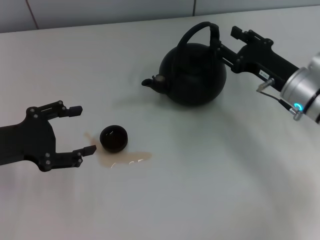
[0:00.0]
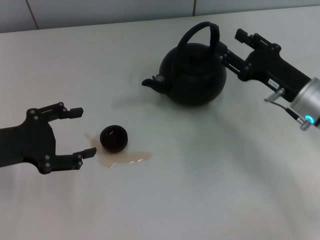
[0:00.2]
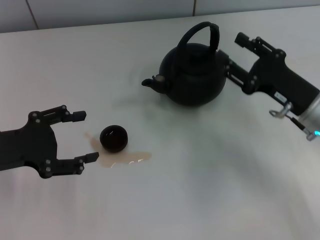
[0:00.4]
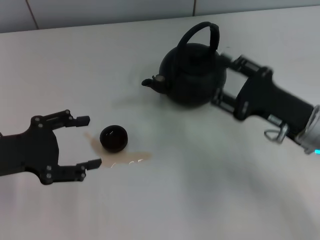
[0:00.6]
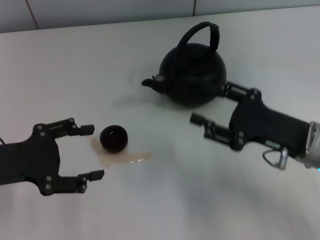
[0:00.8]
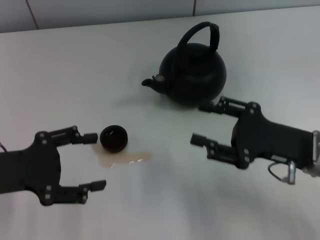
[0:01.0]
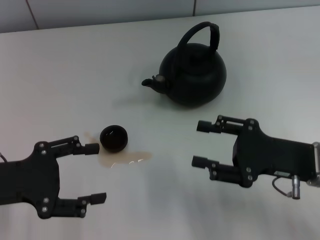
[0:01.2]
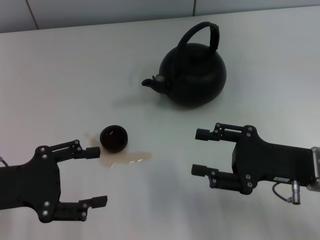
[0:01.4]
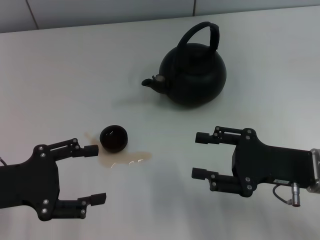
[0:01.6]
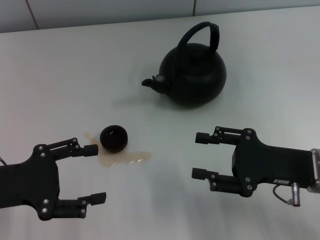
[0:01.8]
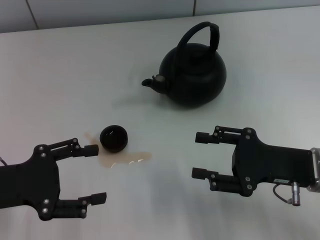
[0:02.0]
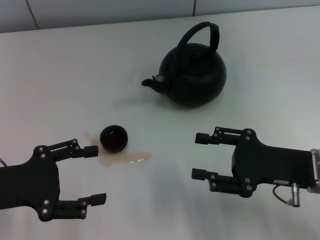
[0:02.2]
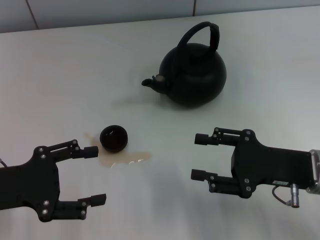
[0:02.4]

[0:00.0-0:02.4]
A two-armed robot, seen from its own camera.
Task of the whole recording: Grasp the handle of the teapot with one hand and pour tea into the teacup.
0:00.0 to 0:01.2: The right gripper moves backward, approximately 10 cm.
0:01.2 to 0:02.4: Neither gripper changes place.

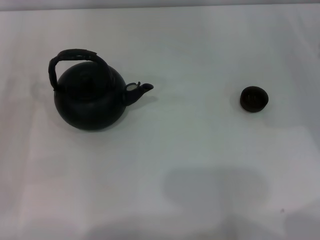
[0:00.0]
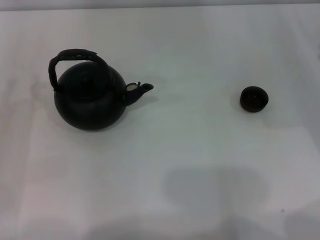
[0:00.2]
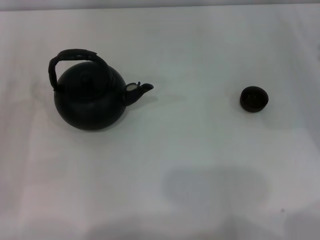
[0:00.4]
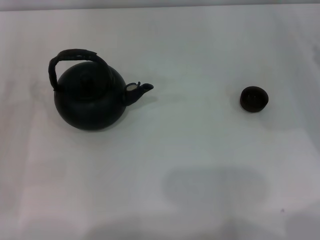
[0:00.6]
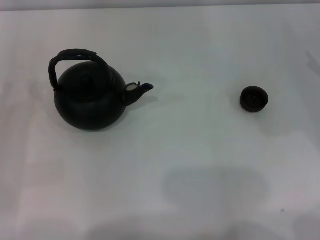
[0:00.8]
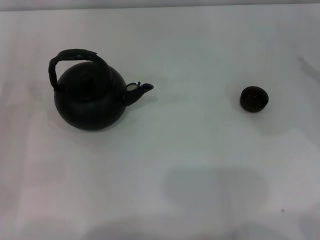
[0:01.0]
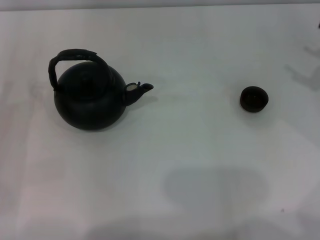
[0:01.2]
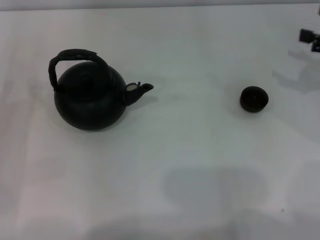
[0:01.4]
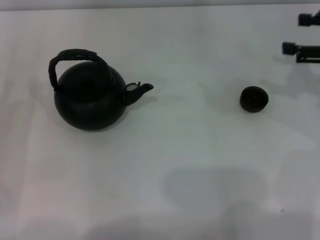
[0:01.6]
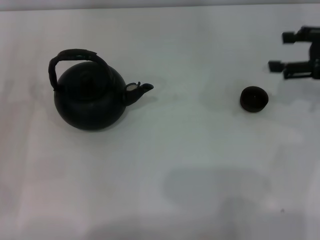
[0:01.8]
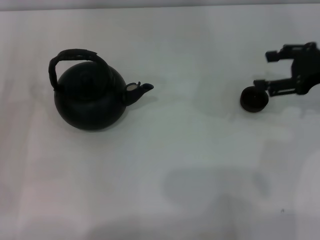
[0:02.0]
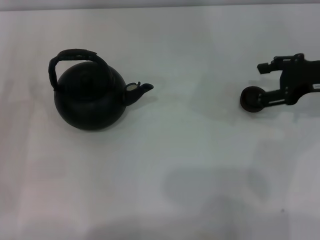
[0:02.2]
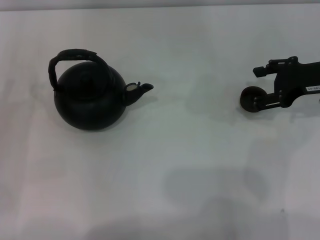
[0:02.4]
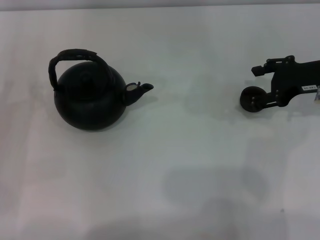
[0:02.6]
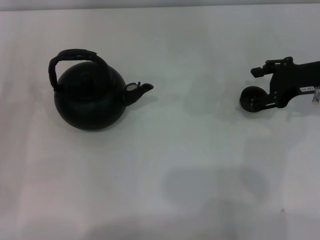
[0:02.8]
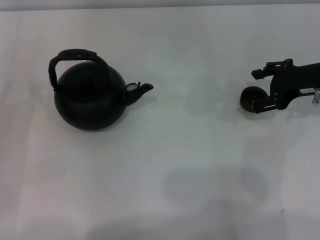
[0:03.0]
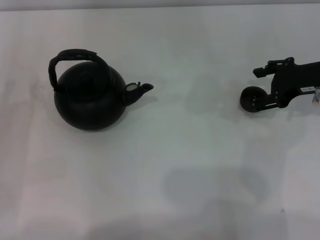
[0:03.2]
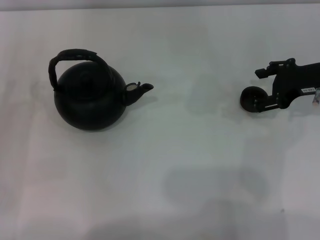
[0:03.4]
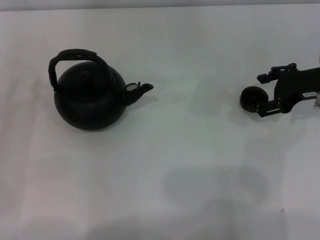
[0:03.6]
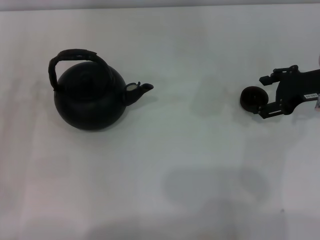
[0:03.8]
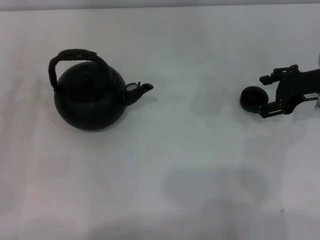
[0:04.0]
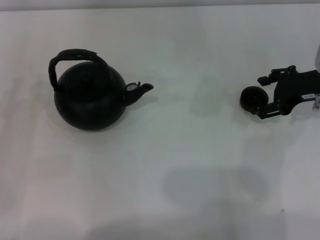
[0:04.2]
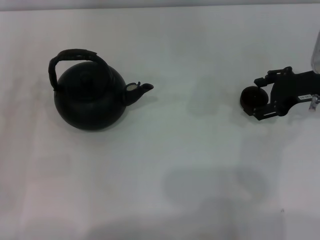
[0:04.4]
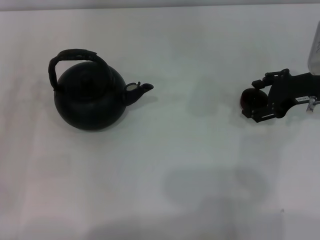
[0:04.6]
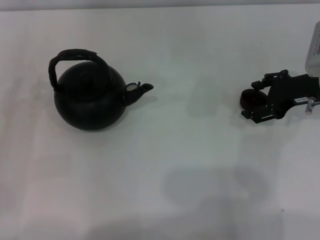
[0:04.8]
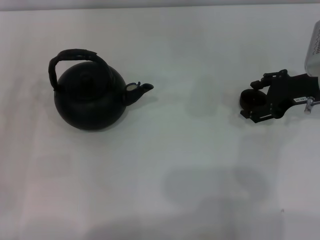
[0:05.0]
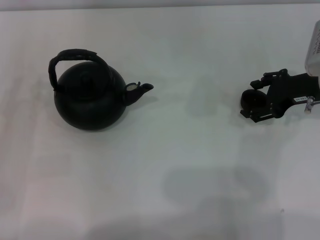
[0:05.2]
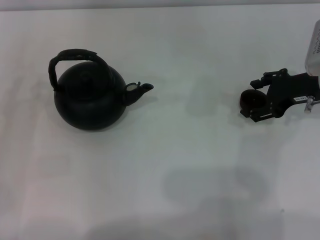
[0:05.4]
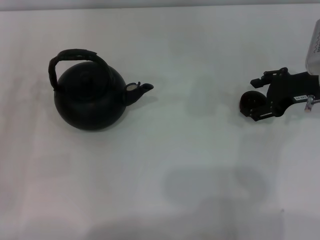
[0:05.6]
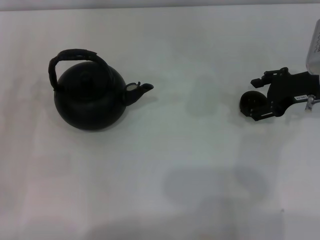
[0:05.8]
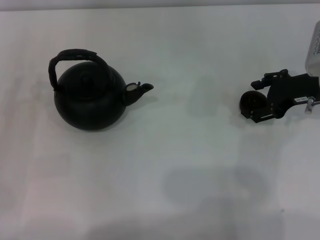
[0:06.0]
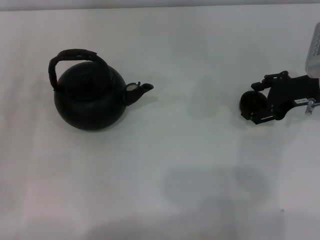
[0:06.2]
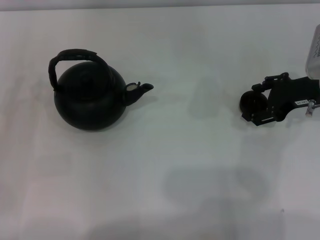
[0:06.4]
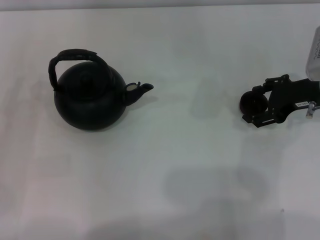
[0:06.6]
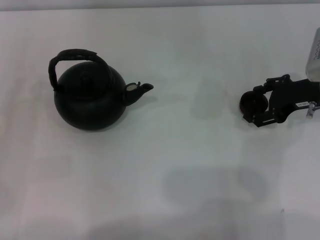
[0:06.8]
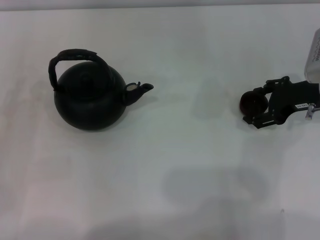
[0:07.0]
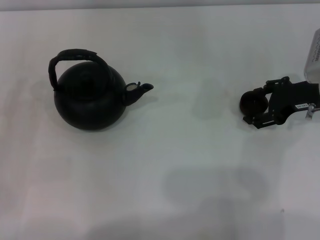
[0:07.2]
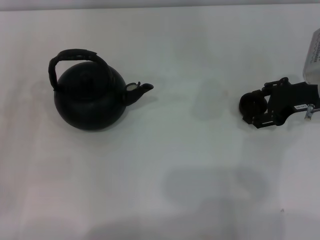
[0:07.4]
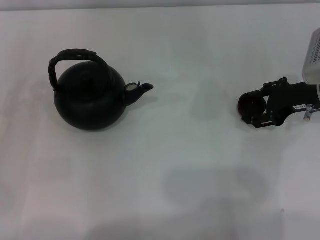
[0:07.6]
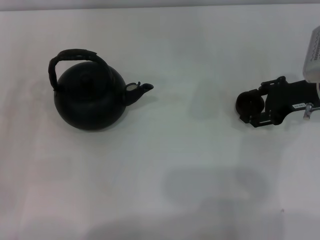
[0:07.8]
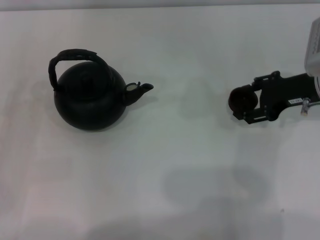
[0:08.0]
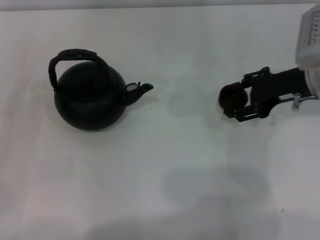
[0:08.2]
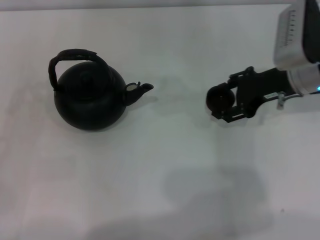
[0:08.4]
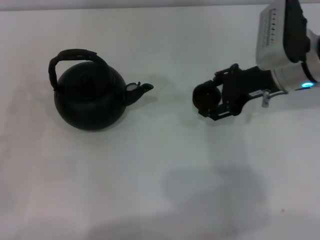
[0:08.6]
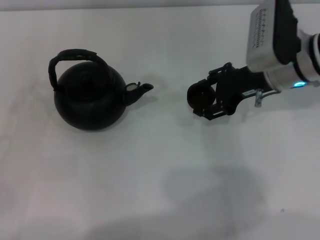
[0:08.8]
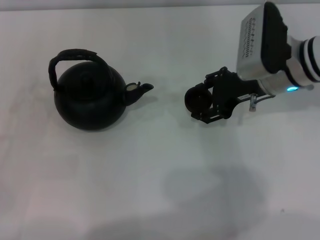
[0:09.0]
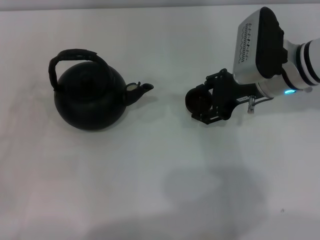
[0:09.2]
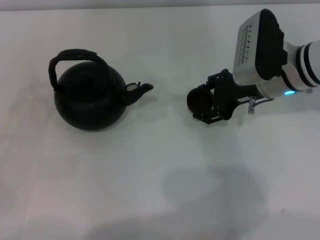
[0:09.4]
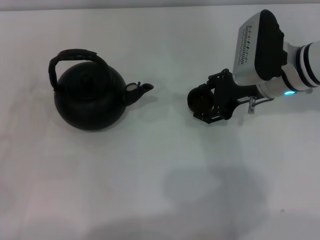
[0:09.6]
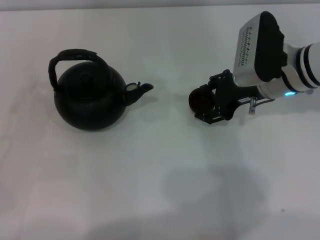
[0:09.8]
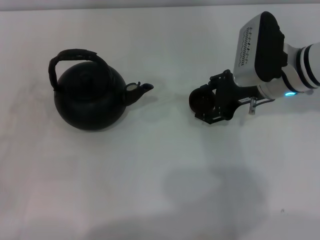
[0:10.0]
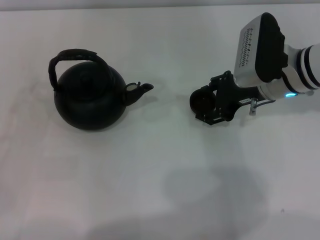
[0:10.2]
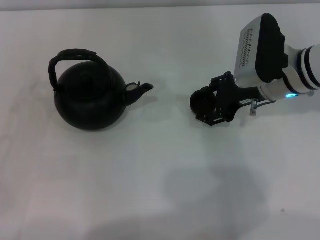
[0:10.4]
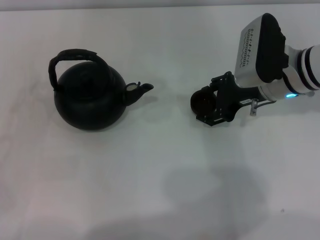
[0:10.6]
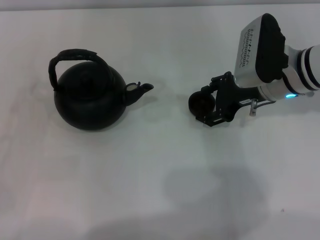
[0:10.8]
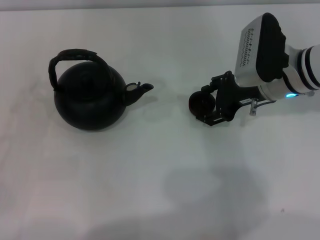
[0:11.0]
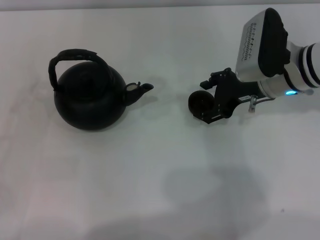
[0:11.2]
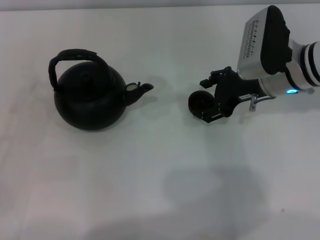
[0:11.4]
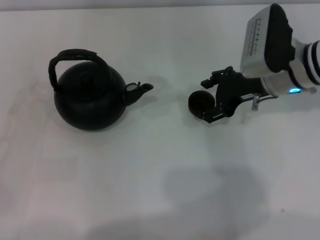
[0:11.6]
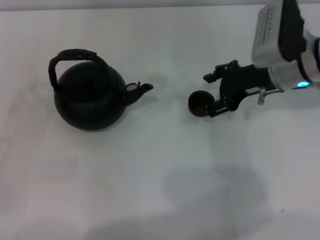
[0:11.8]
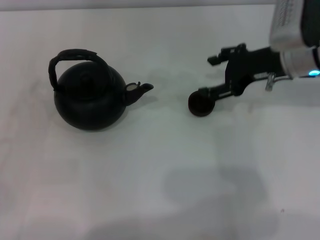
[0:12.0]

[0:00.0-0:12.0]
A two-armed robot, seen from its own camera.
Task of the whole recording: Grasp the handle of the teapot with one hand and pour tea into the teacup.
Step, 0:00.0 to 0:08.0: Pick up the teacup with the right gripper.
0:00.0 to 0:01.6: The right gripper travels upward by some 10 cm.
0:01.6 to 0:03.0: The right gripper heads to the left, covering approximately 5 cm.
0:03.0 to 0:04.4: The grippers stay close to where they were, moving slightly.
0:04.4 to 0:06.0: Both grippers stay about where they are.
0:06.0 to 0:07.6: The right gripper closes.
0:07.6 to 0:09.0: The right gripper goes roughly 10 cm to the left, and closes up.
0:09.0 to 0:10.4: The grippers make only small movements.
0:10.4 to 0:12.0: The right gripper opens up.

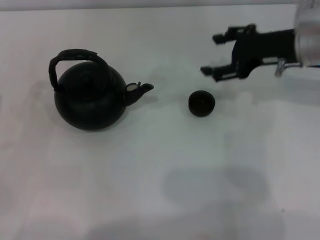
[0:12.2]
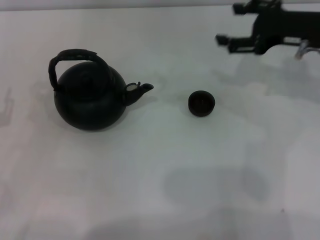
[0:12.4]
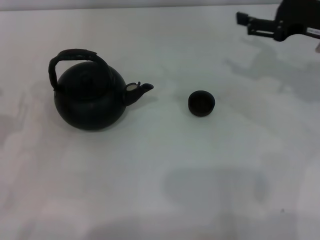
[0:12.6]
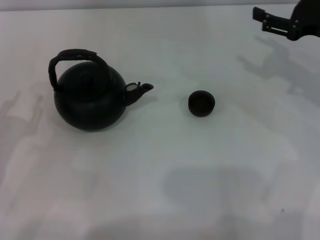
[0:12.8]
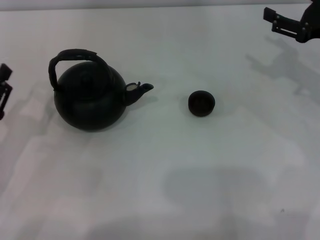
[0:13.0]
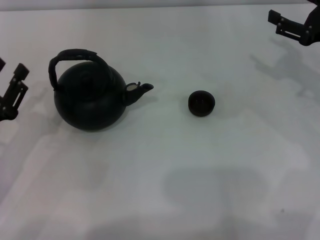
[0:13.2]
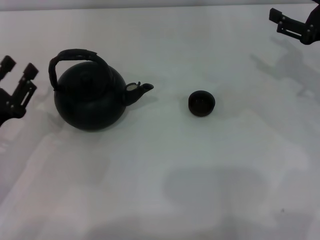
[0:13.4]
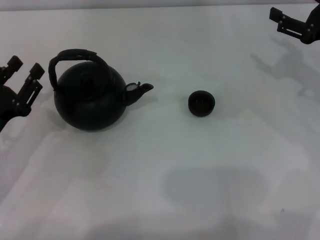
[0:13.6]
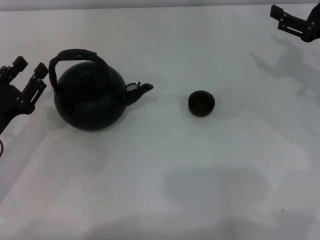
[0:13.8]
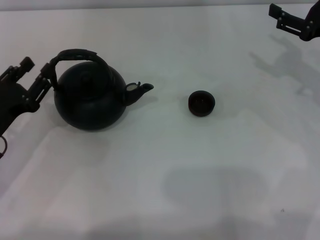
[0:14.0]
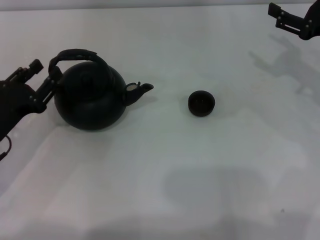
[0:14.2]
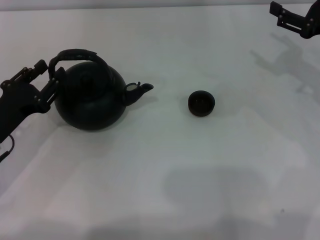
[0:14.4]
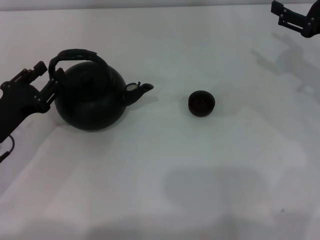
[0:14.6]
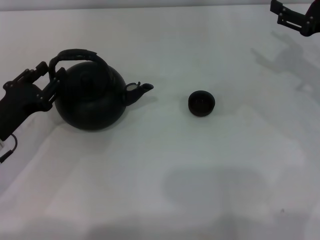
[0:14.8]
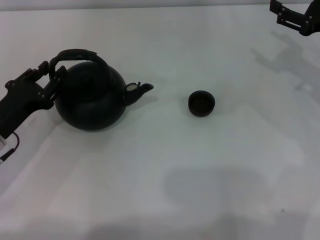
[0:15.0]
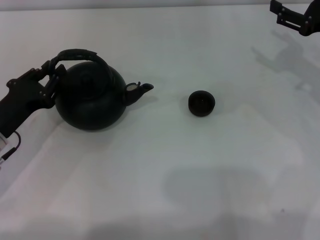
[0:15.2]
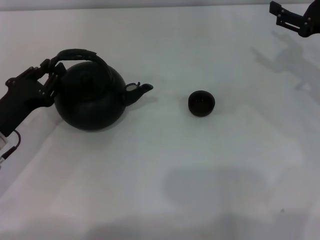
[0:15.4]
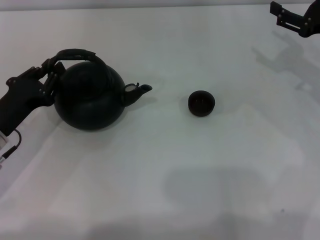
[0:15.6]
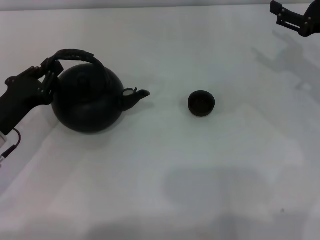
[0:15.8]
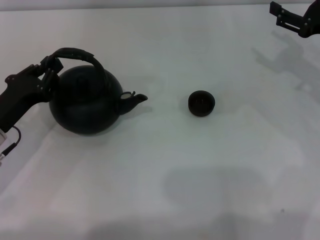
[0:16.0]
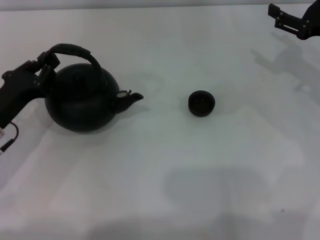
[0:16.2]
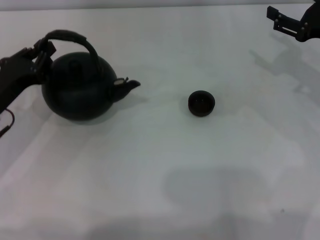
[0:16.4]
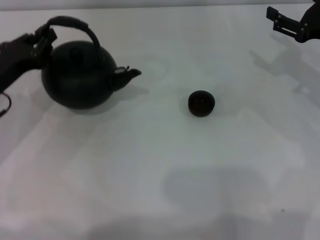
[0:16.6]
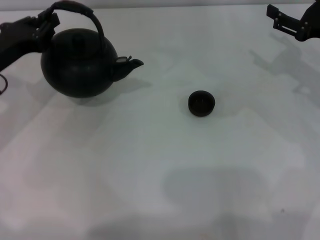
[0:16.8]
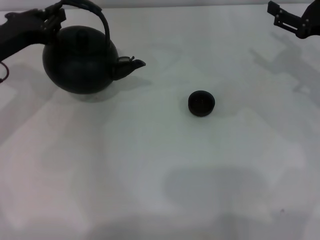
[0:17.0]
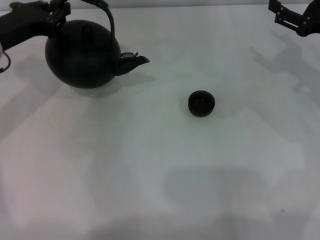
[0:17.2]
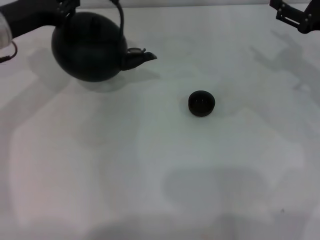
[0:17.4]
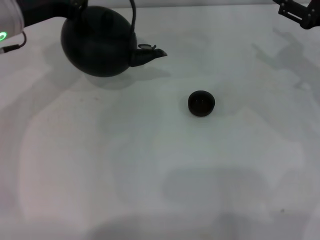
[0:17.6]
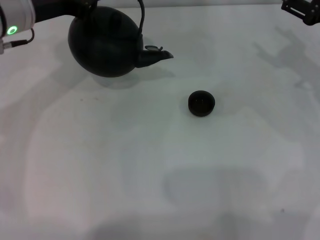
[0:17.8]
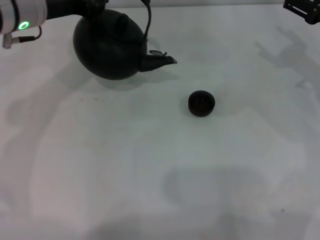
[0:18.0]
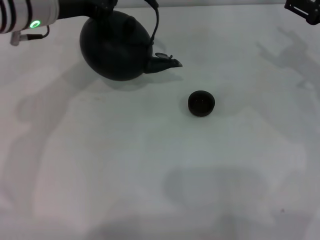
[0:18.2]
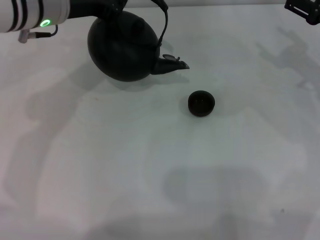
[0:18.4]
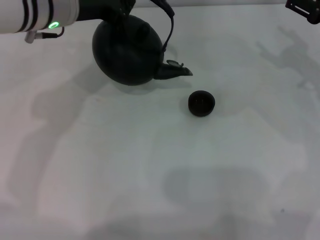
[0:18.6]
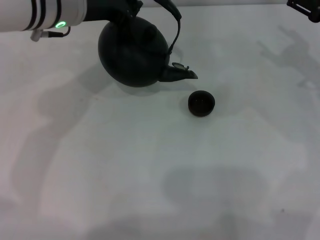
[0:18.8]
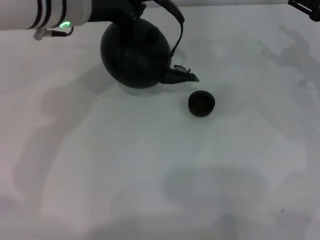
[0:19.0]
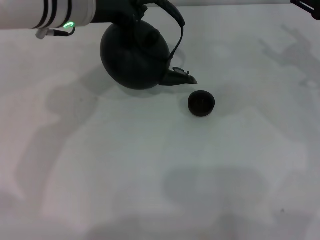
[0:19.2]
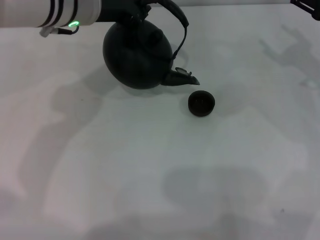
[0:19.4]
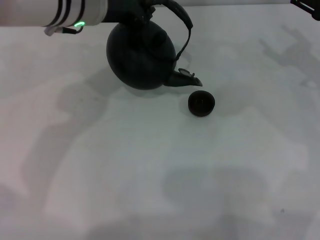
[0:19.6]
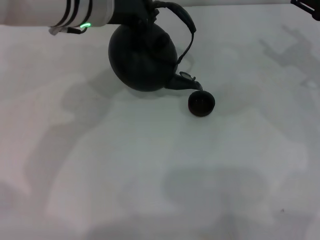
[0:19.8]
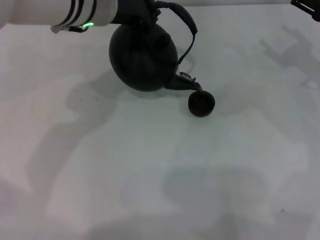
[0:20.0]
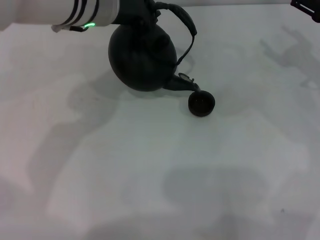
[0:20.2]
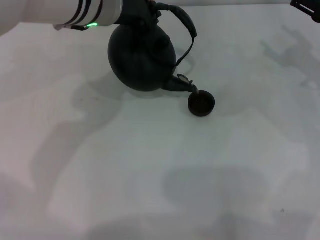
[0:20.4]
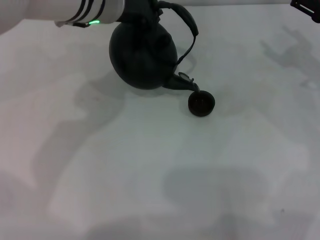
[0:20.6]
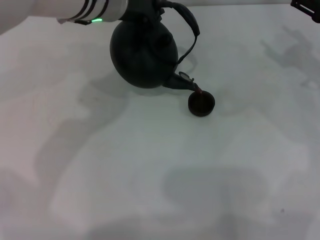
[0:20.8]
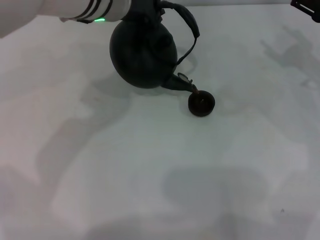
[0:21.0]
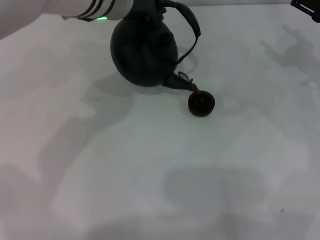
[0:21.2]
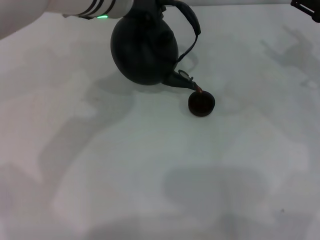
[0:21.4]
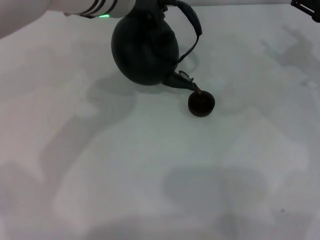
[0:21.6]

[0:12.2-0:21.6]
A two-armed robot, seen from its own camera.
Task of the whole recording: Grasp the handle of the teapot with one hand and pour tea into the teacup.
Step, 0:12.2 to 0:16.6: Pick up the teapot with the left gripper.
0:12.2 to 0:13.8: The right gripper moves to the right, about 10 cm. Meanwhile the left gripper is displaced to the right by some 5 cm.
0:13.8 to 0:15.4: The grippers stay close to where they were, moving slightly.
0:15.4 to 0:17.0: The left gripper travels forward and upward by roughly 10 cm, and closes up.
0:17.0 to 0:18.4: The left gripper heads to the right and upward, covering roughly 15 cm.
0:18.4 to 0:20.0: The left gripper heads to the right, covering some 5 cm.
0:20.0 to 0:21.6: There are only small adjustments of the grippers.
